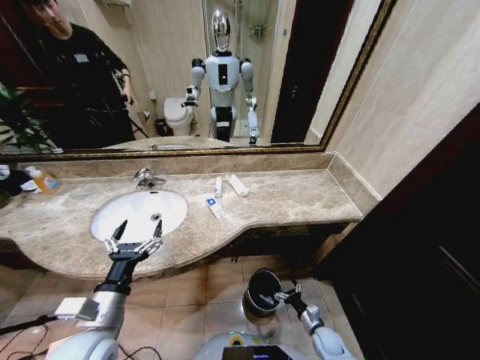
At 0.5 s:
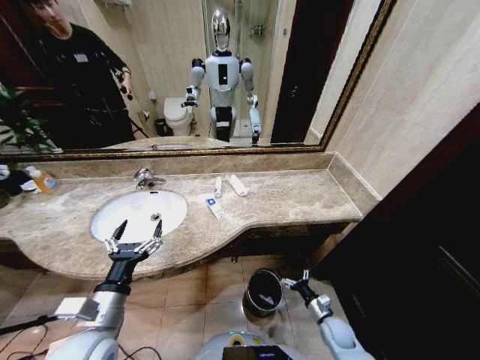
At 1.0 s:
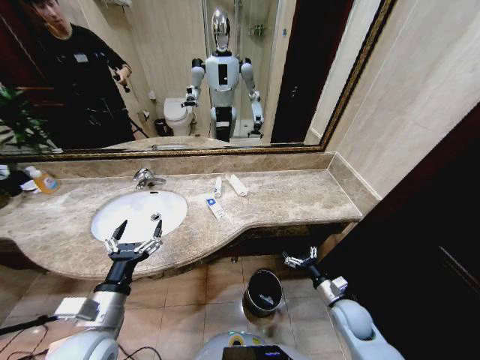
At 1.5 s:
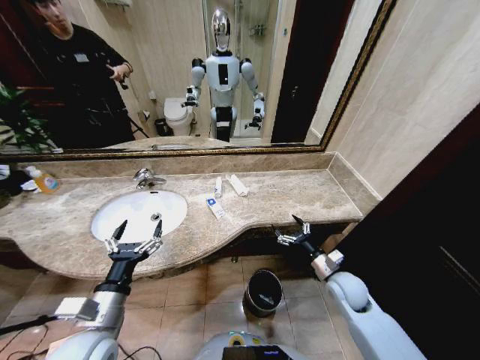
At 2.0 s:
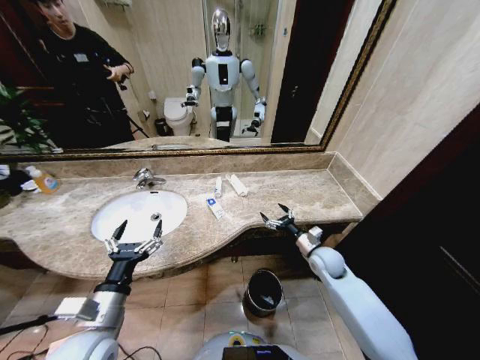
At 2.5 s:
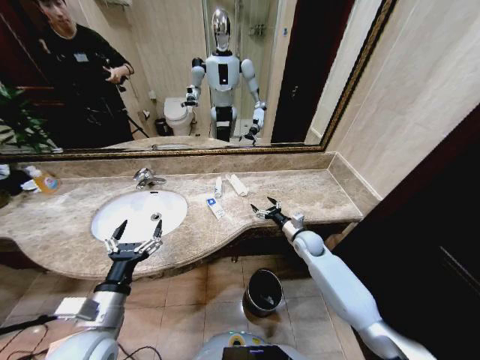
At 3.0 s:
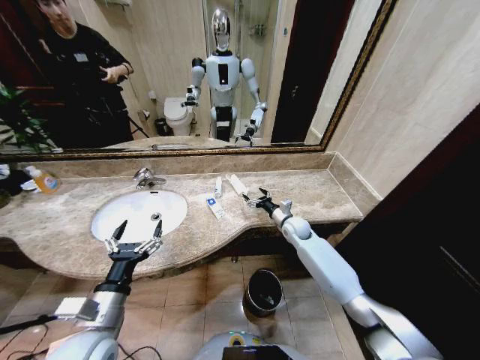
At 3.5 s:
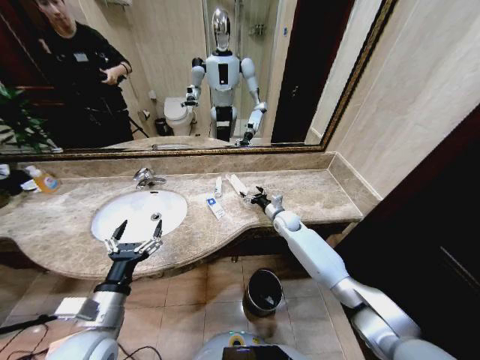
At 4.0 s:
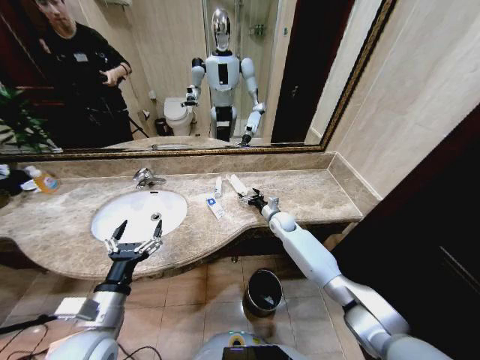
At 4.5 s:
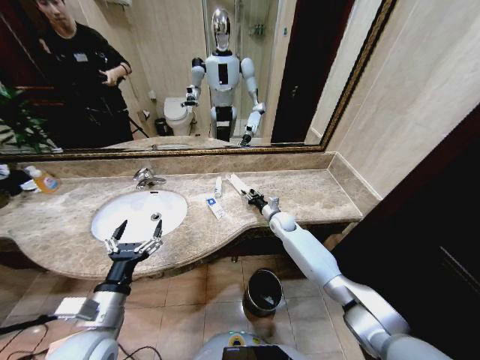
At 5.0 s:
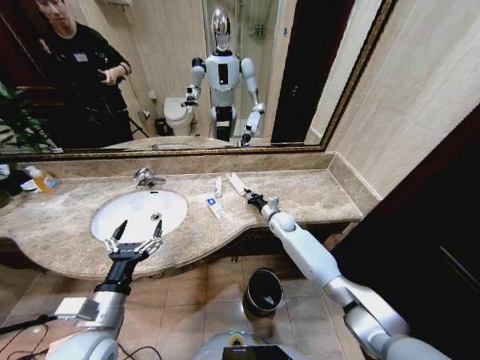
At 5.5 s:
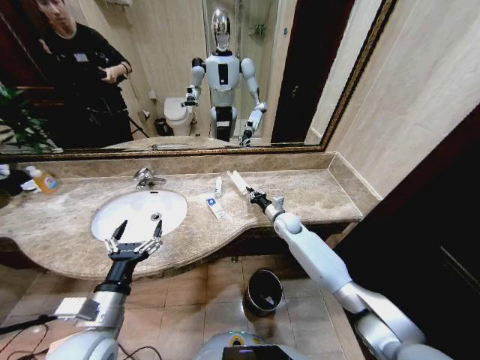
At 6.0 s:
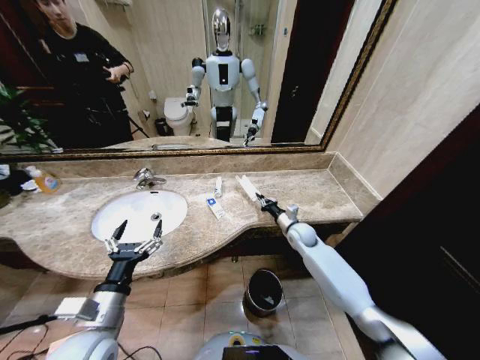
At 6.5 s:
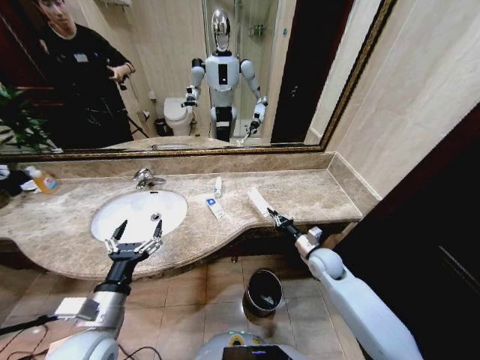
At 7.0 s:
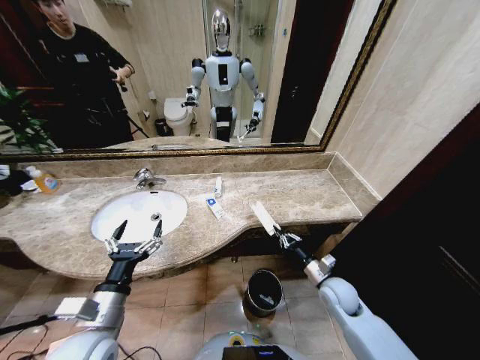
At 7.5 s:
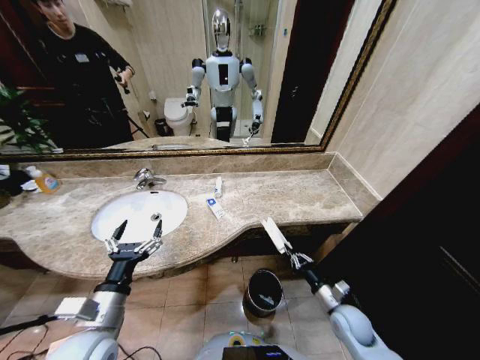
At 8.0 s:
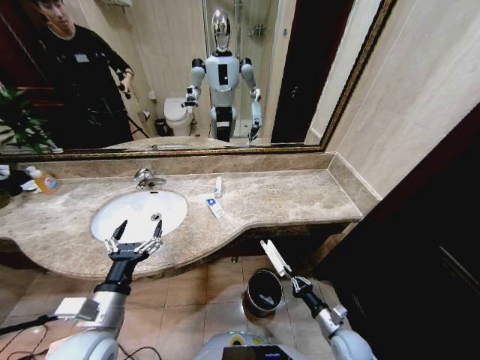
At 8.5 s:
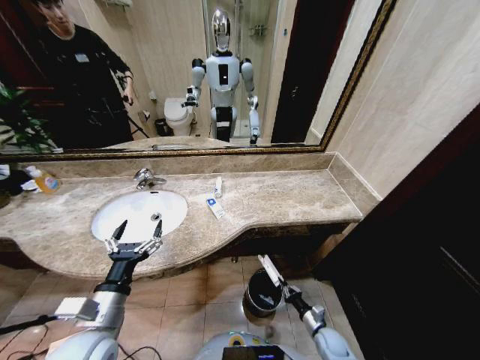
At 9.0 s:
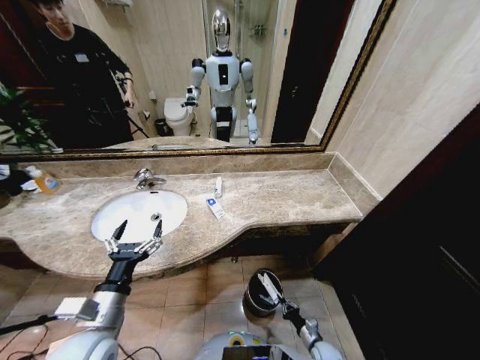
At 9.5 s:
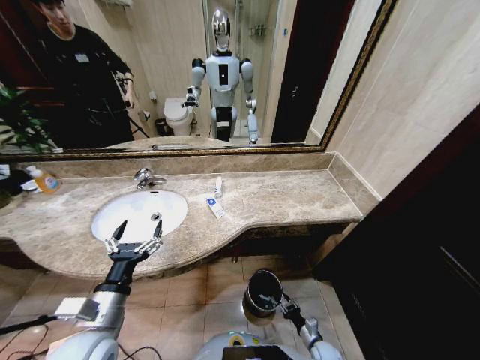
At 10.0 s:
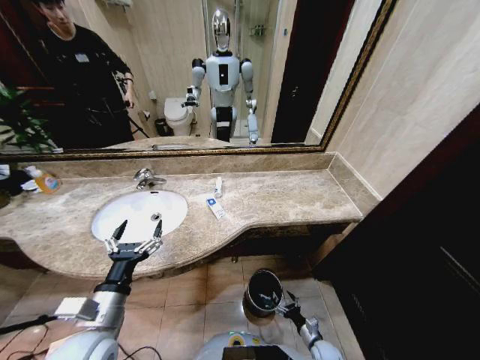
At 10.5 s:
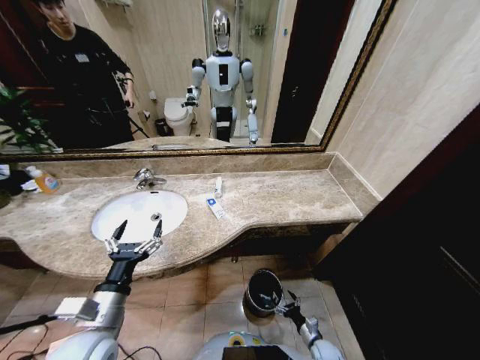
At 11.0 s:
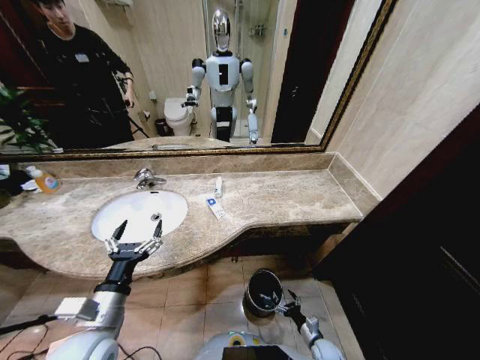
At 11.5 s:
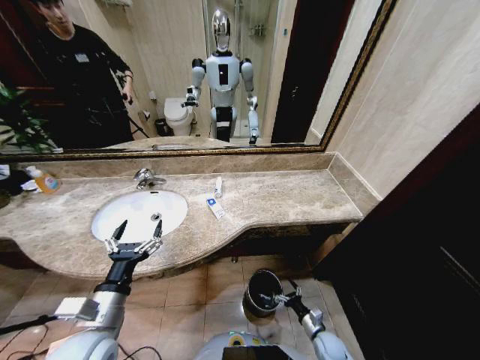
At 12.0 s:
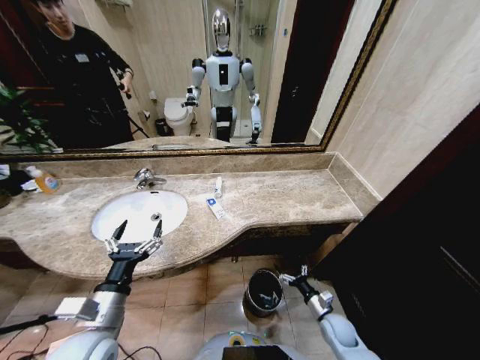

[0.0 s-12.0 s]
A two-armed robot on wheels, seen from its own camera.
Task of the whole recording: Pick up the trash from the sink and place it in the trash bin.
0.0 to 2.0 s: The right gripper travels upward and forward by some 30 cm.
2.0 to 4.0 s: The right gripper goes some 20 cm forward and to the left.
4.0 to 6.0 s: The right gripper shifts some 10 cm backward and to the right, and closes up.
6.0 to 8.0 s: The right gripper shifts roughly 35 cm backward and downward.
8.0 to 10.0 s: The right gripper heads downward, covering approximately 15 cm, and opens its fingers.
10.0 to 12.0 s: The right gripper travels upward and forward by approximately 15 cm.

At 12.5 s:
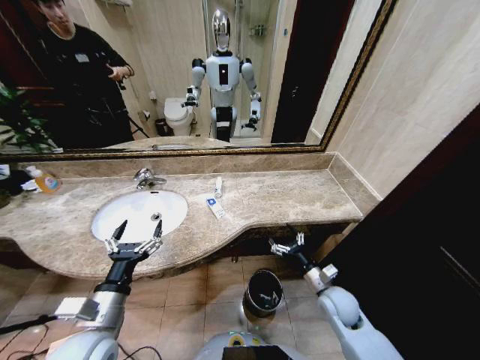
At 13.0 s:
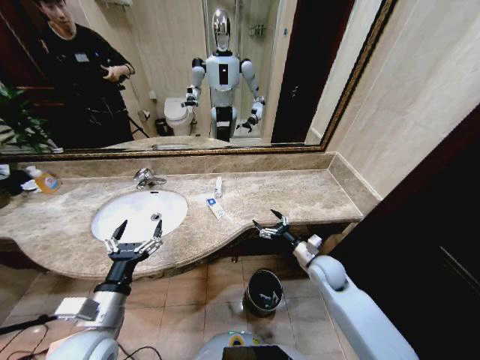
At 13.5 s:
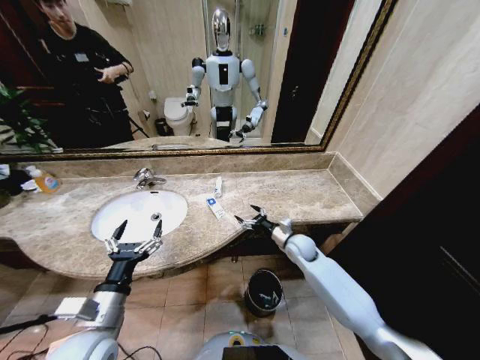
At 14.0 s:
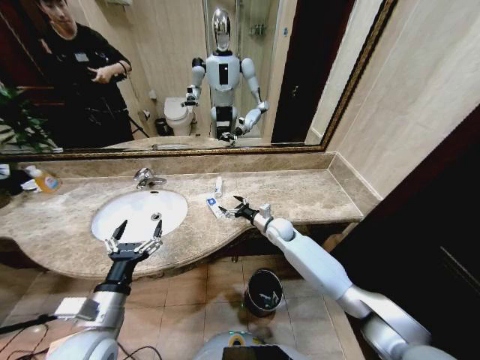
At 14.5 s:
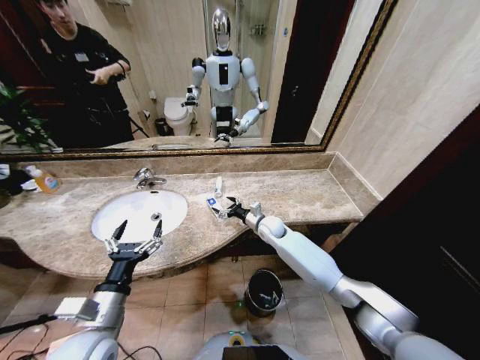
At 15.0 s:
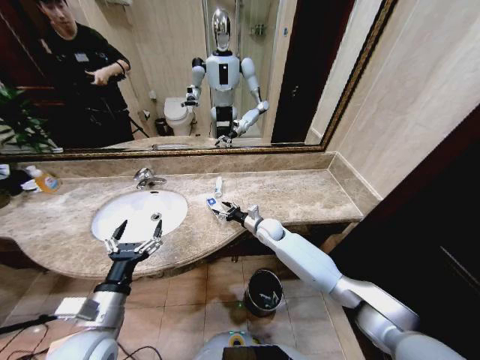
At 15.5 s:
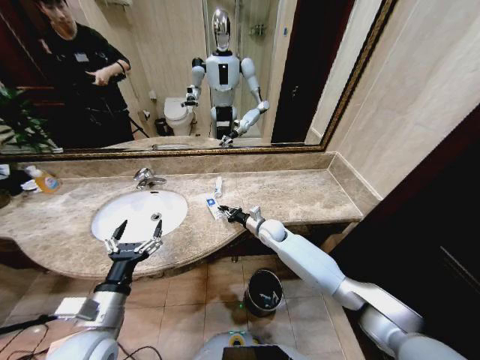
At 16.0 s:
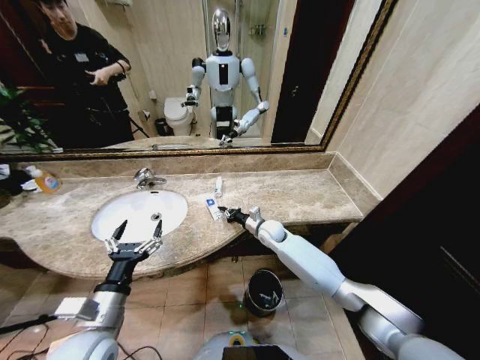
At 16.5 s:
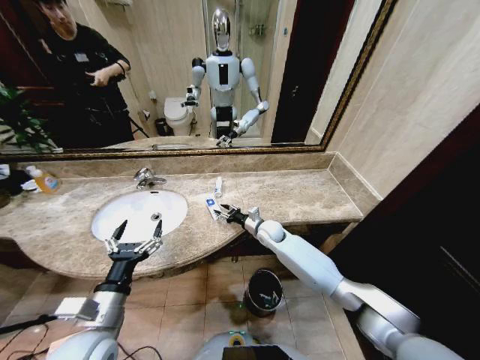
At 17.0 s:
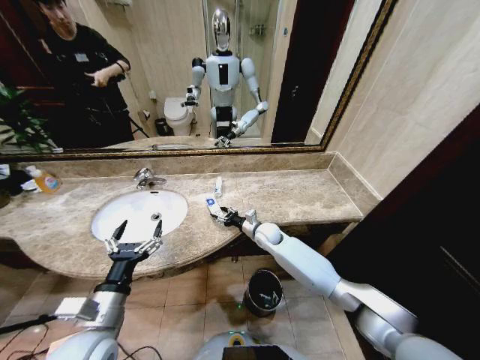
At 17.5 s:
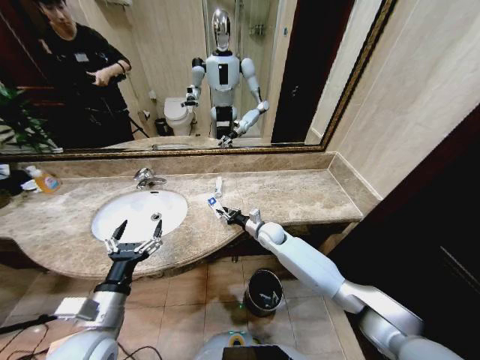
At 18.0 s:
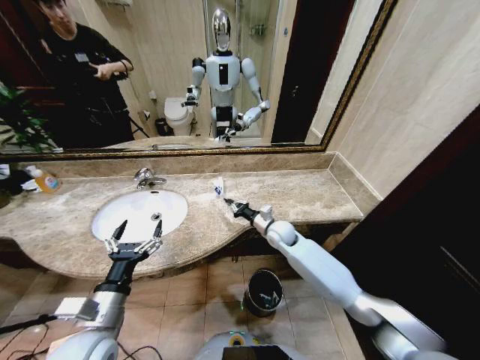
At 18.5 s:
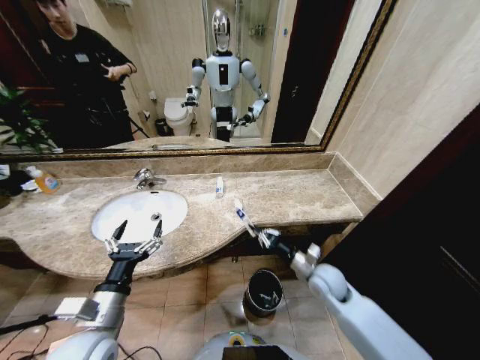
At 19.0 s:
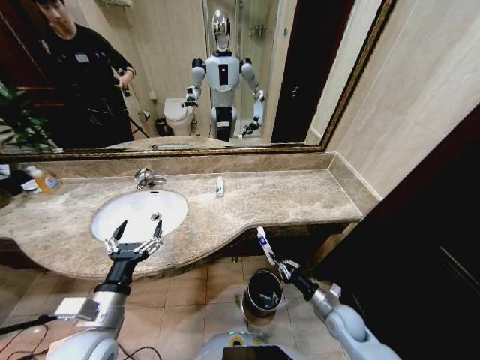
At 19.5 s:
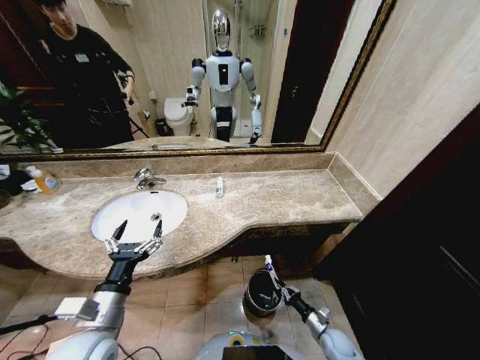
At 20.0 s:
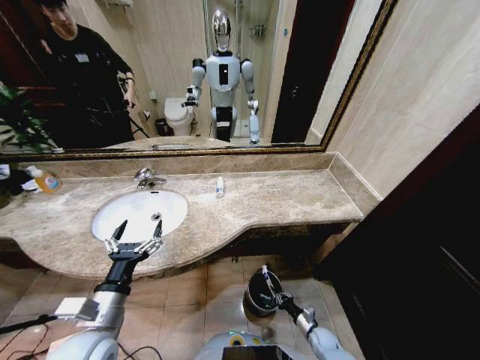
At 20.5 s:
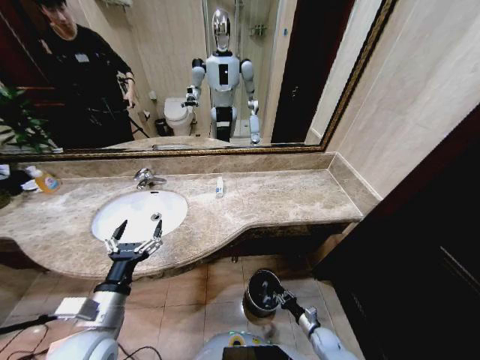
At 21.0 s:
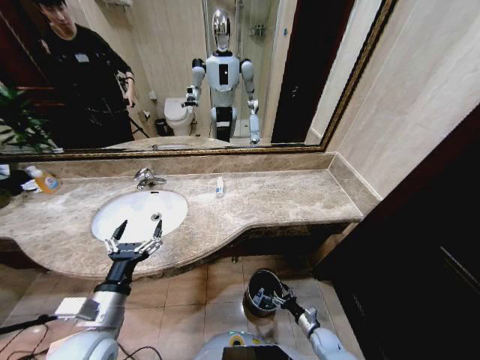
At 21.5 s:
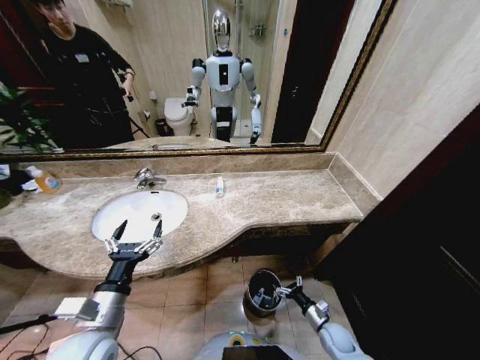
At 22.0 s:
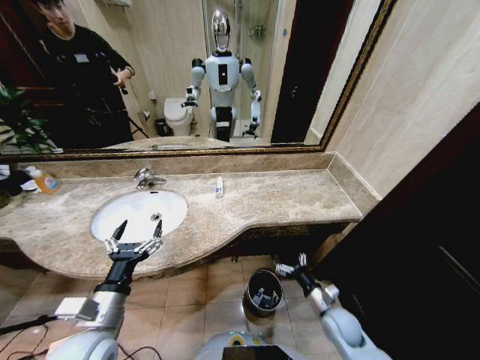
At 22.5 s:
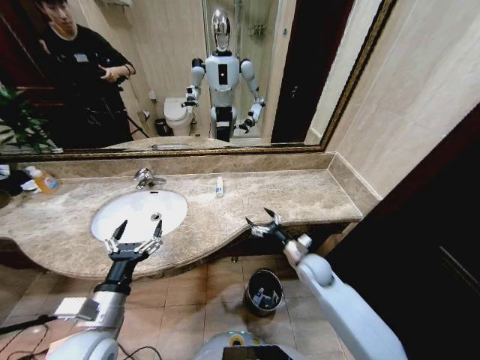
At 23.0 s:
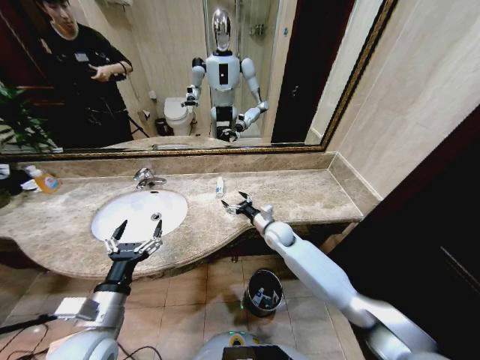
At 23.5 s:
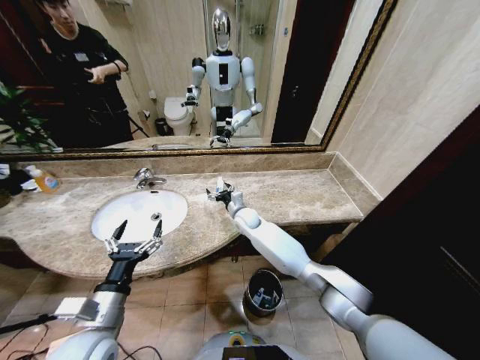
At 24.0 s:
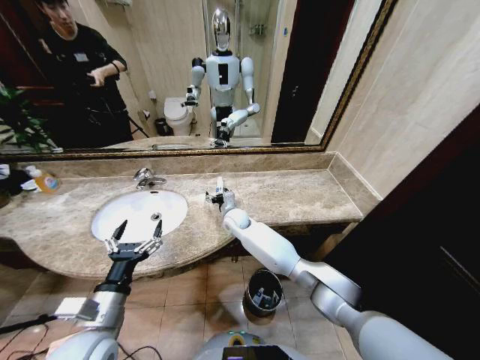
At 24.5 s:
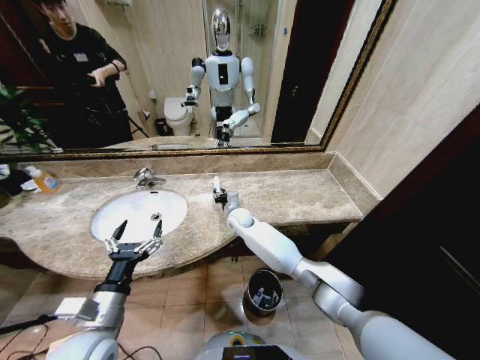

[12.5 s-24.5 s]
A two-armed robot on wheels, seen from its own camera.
Task of the whole recording: Pick up the trash from the sink and place it in the trash bin.
12.5 to 14.5 s: The right gripper travels forward and to the left by some 30 cm.
14.5 to 16.5 s: The right gripper closes up.
16.5 to 18.5 s: The right gripper moves backward and to the right, about 20 cm, and closes up.
18.5 to 20.5 s: The right gripper shifts approximately 30 cm downward.
20.5 to 22.5 s: The right gripper shifts some 35 cm upward and forward, and opens.
22.5 to 24.5 s: The right gripper moves to the left and forward, roughly 30 cm, and closes its fingers.

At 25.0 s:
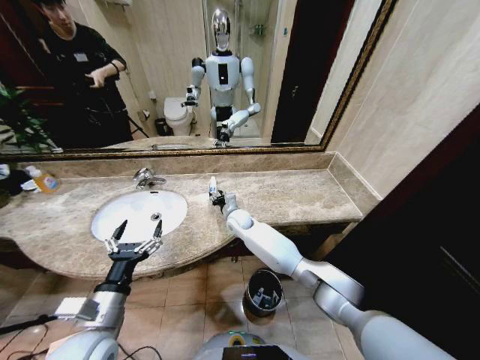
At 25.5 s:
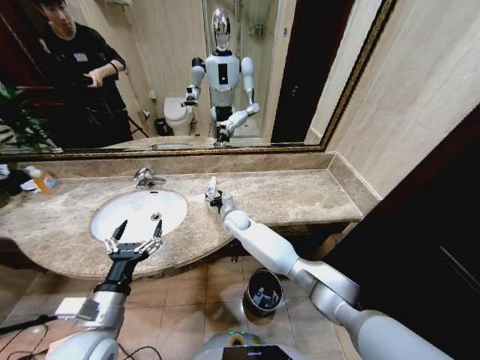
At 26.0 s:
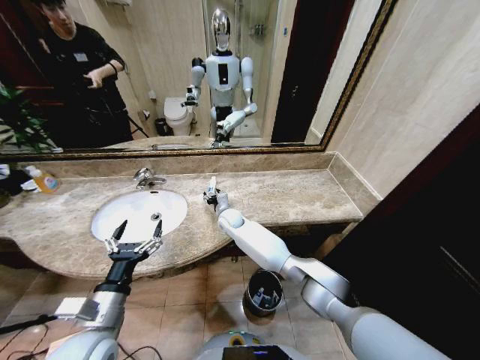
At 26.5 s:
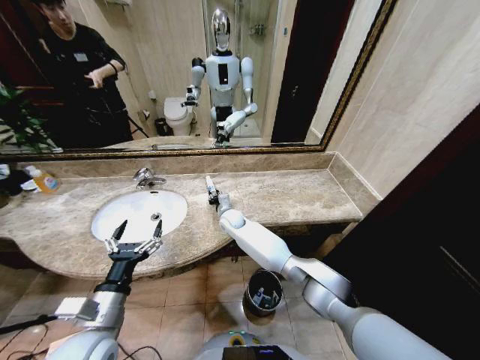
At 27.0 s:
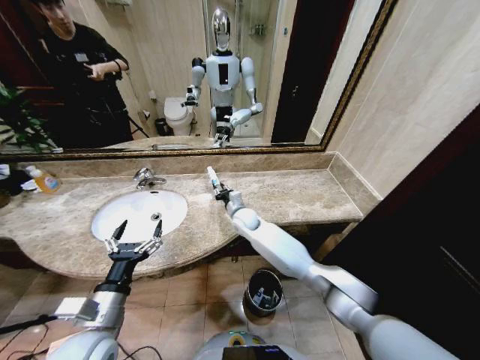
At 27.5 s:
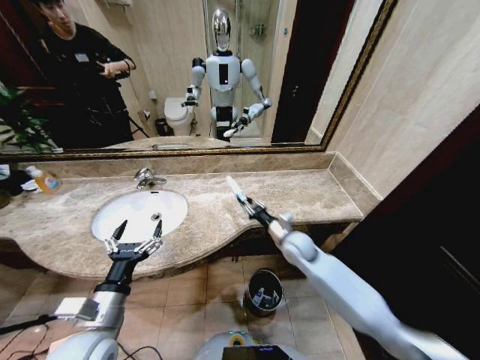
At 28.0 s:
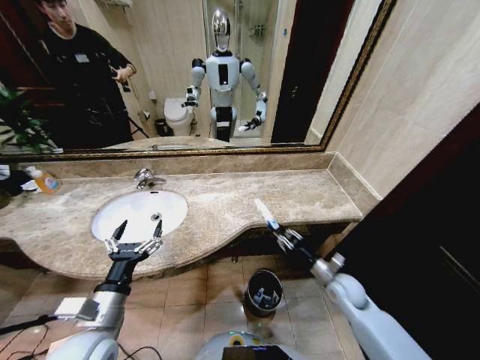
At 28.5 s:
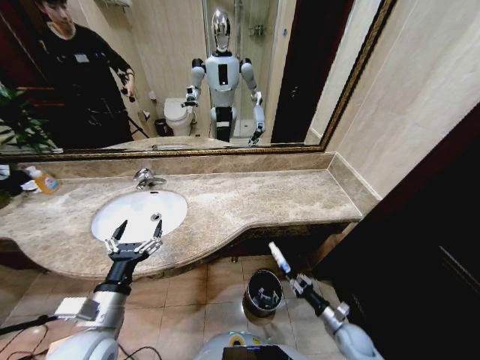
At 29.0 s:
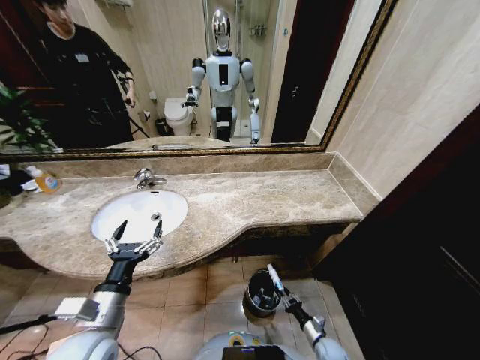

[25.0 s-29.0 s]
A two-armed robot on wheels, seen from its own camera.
Task of the whole recording: Pick up the trash from the sink and place it in the trash bin.
25.0 to 27.0 s: The grippers move only a little.
27.0 to 29.0 s: The right gripper shifts some 60 cm downward, backward and to the right.
